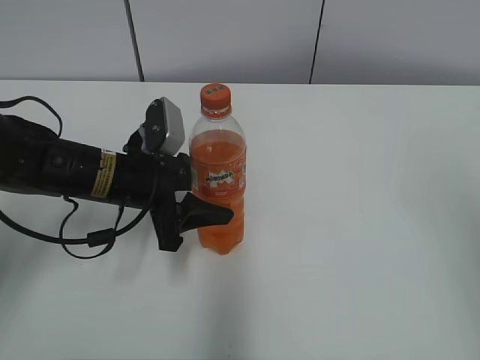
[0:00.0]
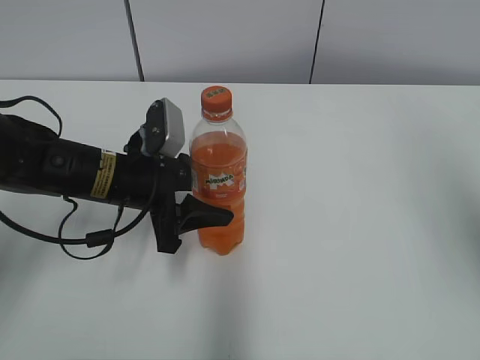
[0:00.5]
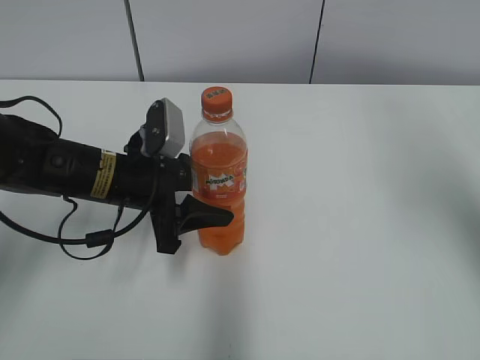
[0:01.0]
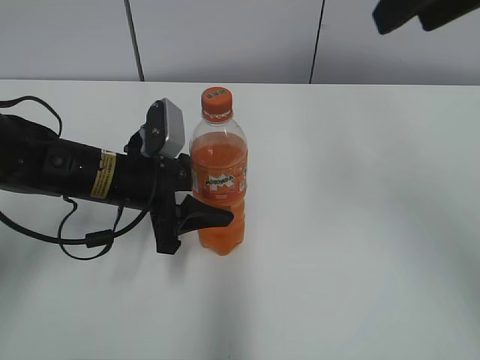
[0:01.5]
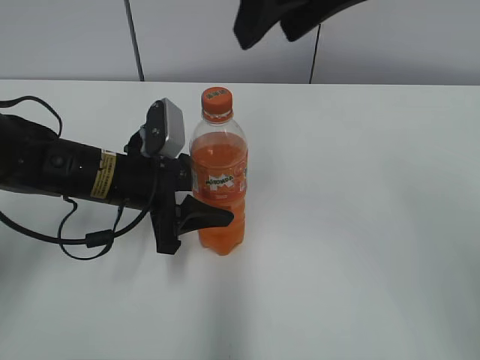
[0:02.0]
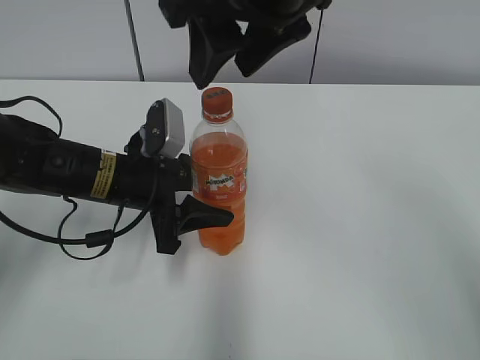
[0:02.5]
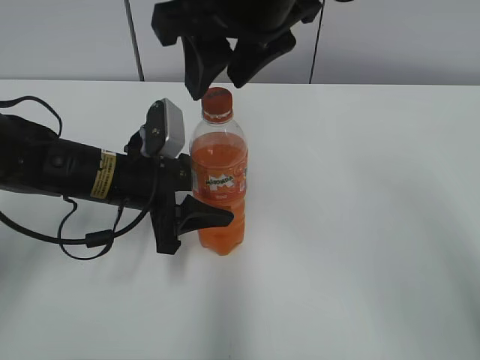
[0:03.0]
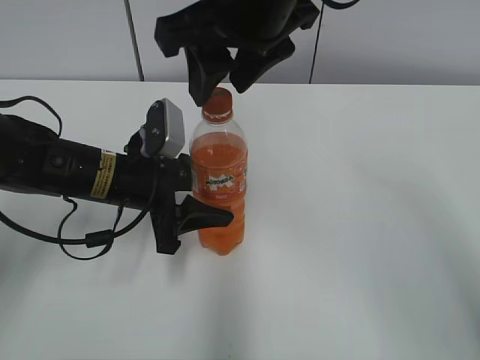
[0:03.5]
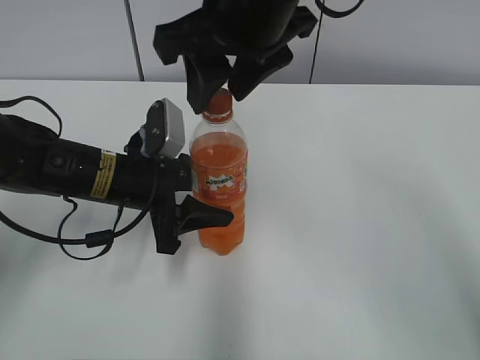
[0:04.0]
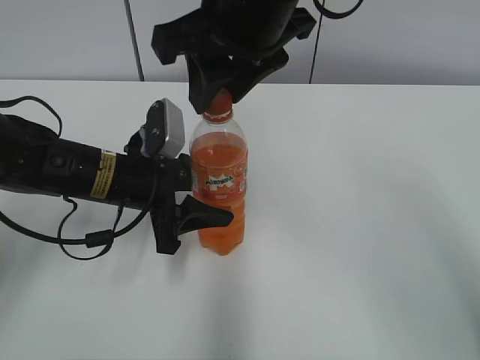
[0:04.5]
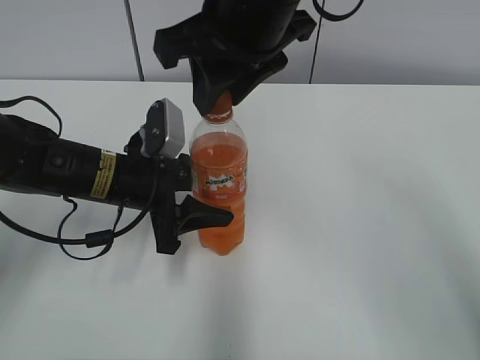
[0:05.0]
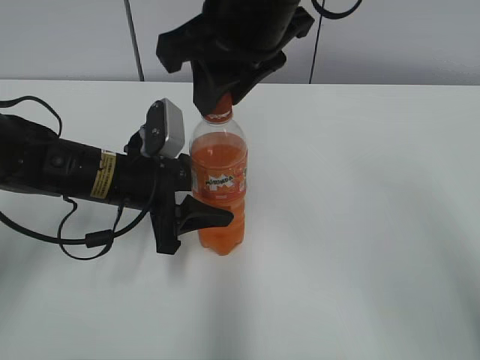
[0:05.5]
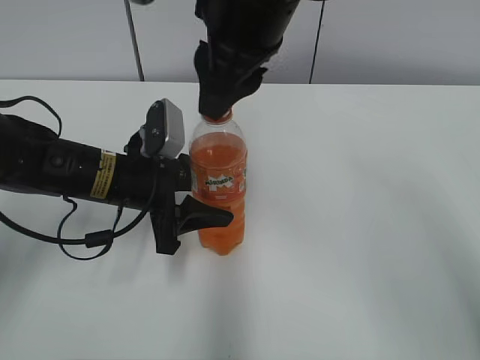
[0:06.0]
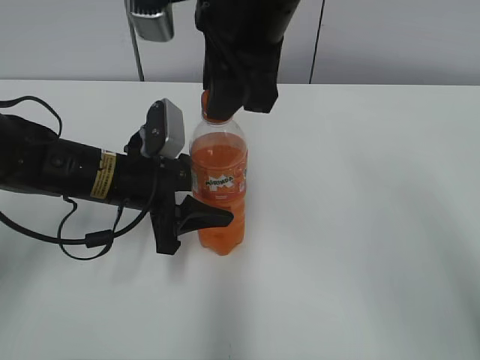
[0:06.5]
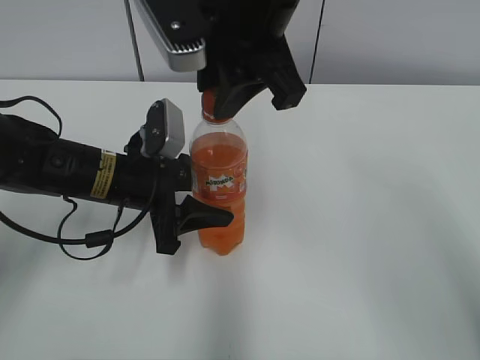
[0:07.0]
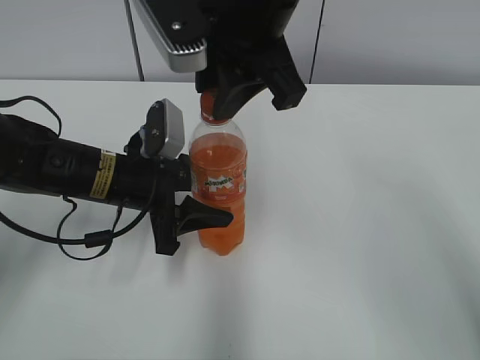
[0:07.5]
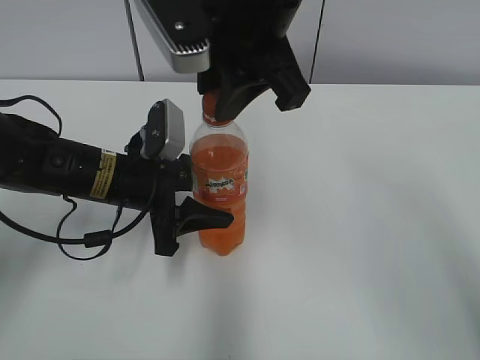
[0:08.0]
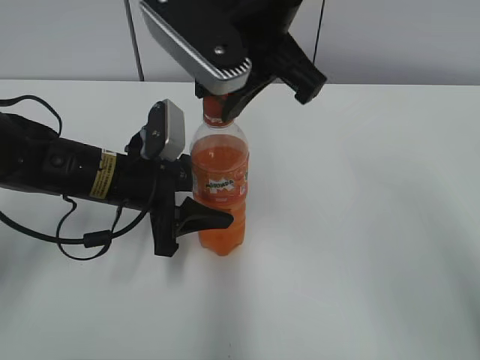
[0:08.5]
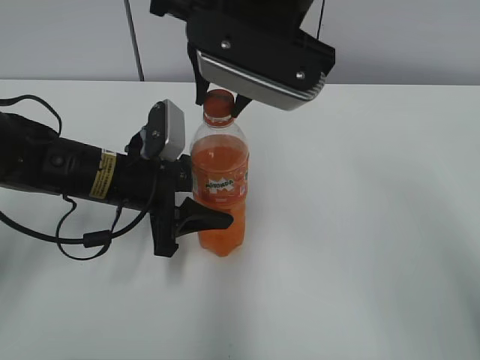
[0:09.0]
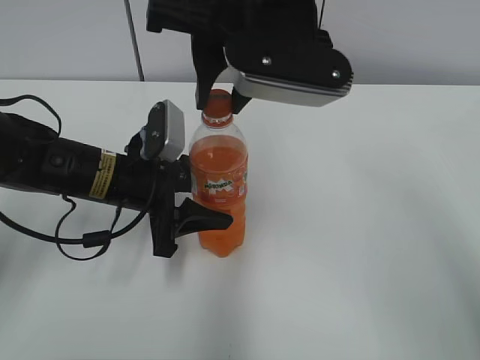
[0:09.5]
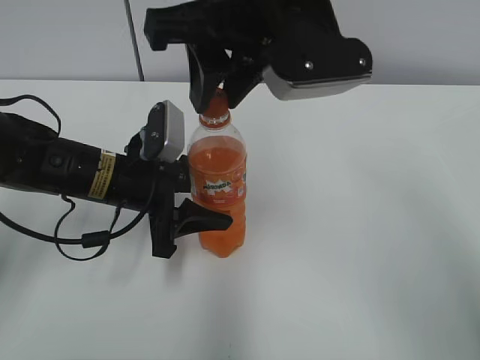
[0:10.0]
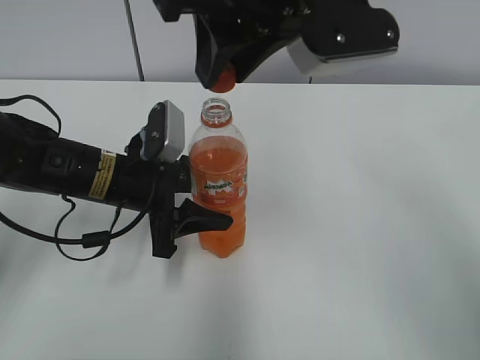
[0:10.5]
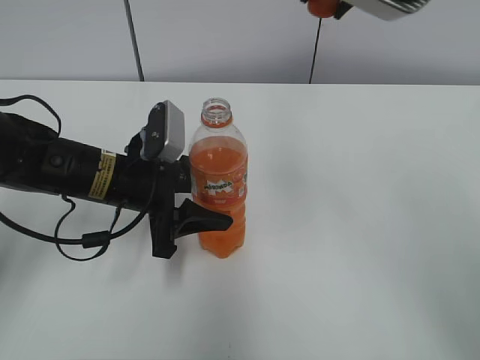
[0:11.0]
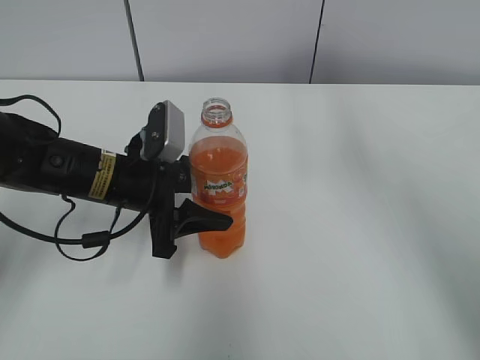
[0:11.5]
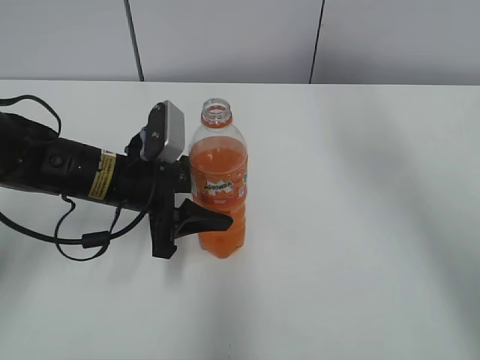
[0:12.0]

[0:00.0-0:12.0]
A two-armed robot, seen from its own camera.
0:00.0 to 0:02.0: The right gripper heads to the left and forward, covering roughly 30 cm.
0:02.0 to 0:04.0: The right gripper moves downward and to the left, roughly 10 cm.
0:04.0 to 0:06.0: The right gripper closes its fingers.
0:10.0 to 0:12.0: The right gripper is displaced to the right by about 15 cm.

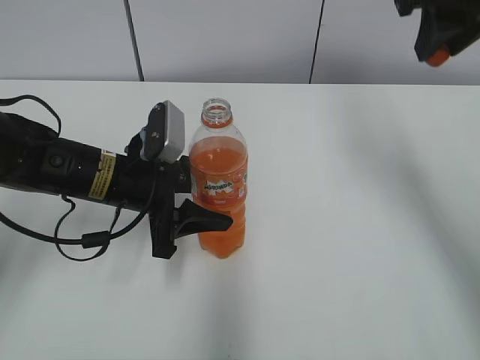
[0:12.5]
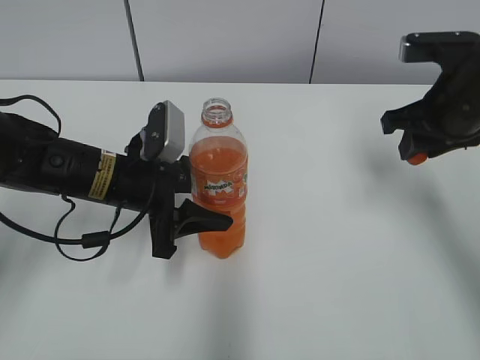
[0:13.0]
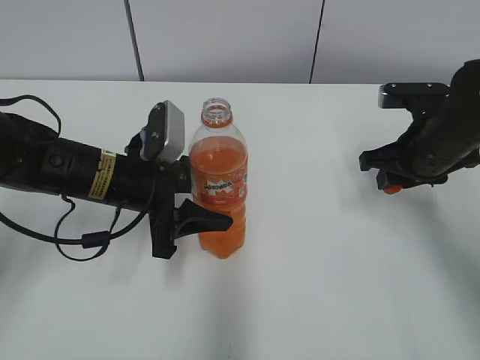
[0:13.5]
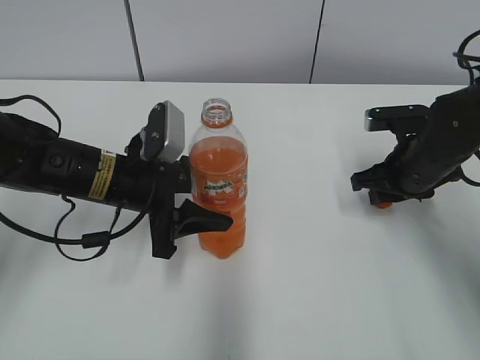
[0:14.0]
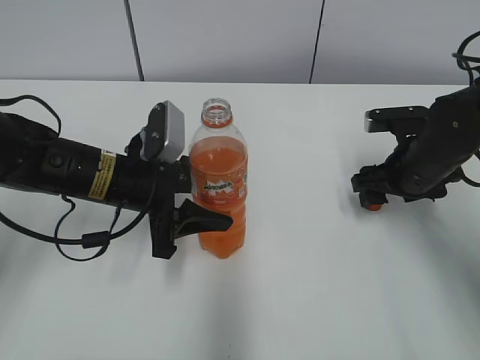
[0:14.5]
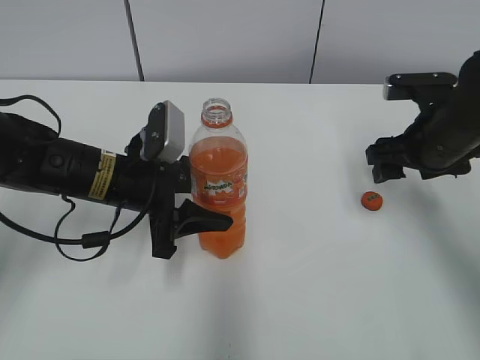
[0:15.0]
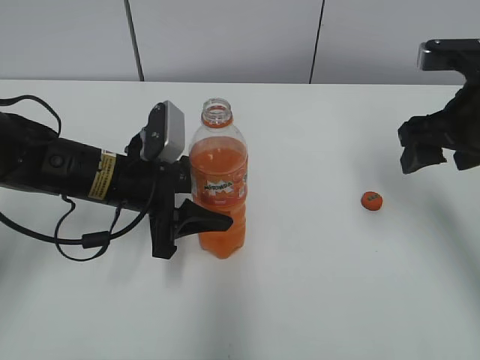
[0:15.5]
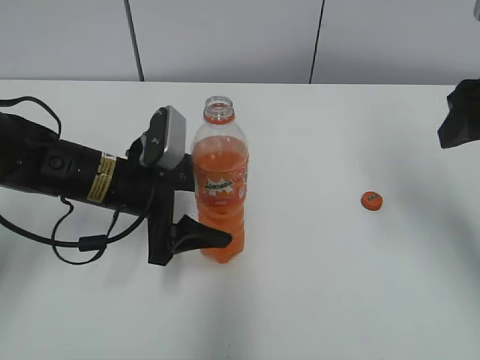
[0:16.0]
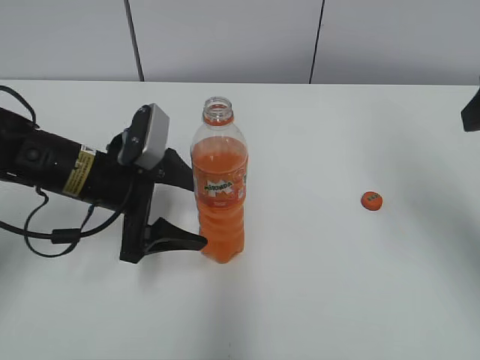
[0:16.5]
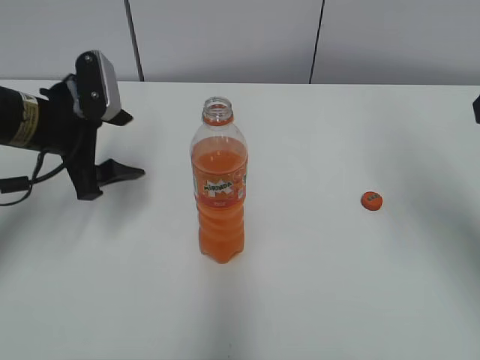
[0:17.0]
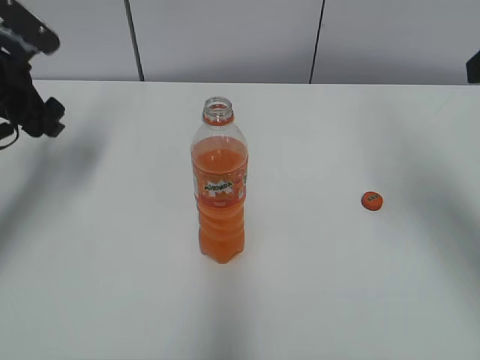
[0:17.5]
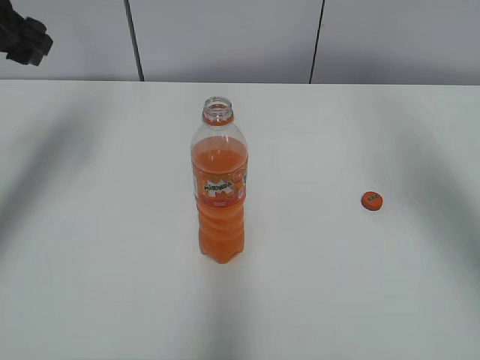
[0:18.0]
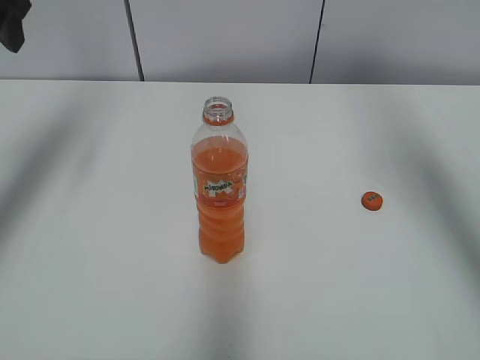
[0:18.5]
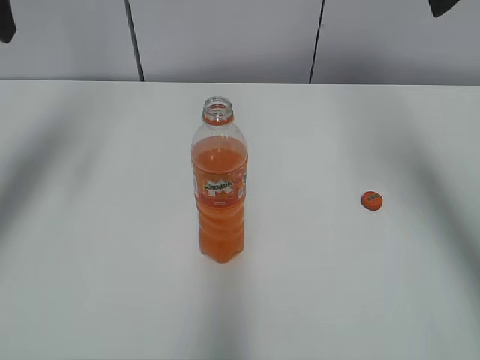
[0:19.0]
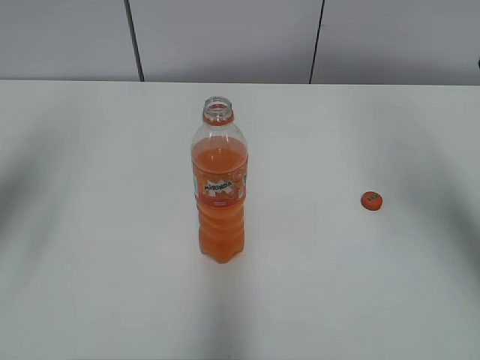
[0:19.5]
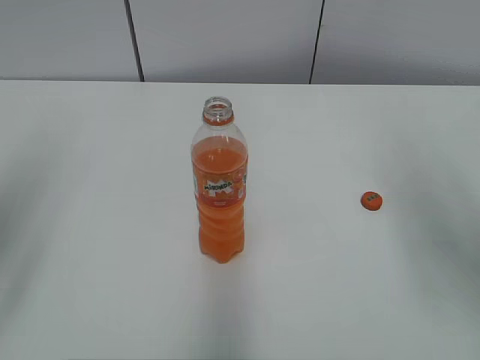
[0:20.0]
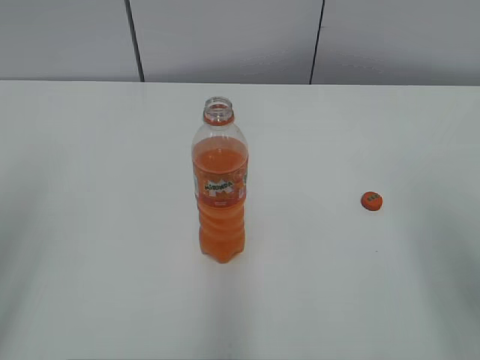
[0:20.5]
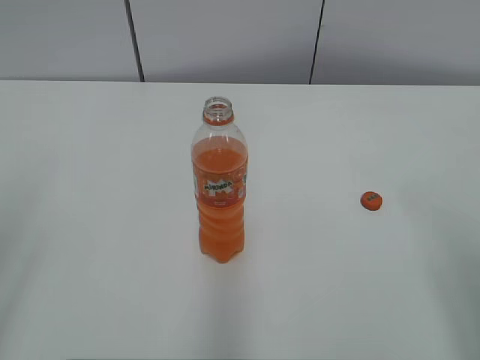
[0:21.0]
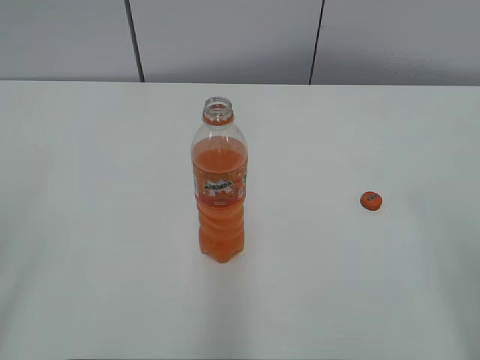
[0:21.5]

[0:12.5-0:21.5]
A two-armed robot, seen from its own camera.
0:12.5 to 0:14.5: The right gripper is displaced downward by about 25 cm, and opens.
0:14.5 to 0:17.0: The left gripper goes about 10 cm to the left and upward, and opens its fingers; the right gripper travels upward and backward by about 25 cm.
0:17.0 to 0:19.5: The left gripper moves upward, backward and to the left, some 20 cm.
0:19.5 to 0:21.5: The left gripper is displaced backward by some 20 cm, while the right gripper shifts some 25 cm backward and downward.

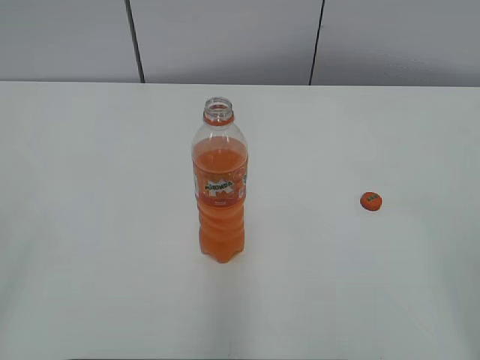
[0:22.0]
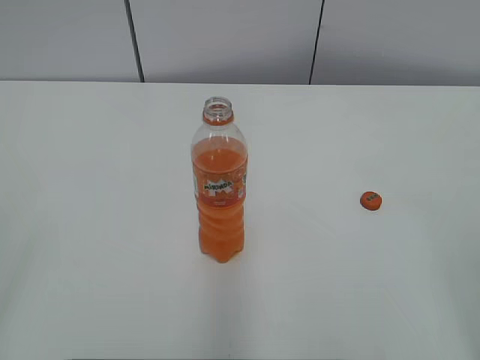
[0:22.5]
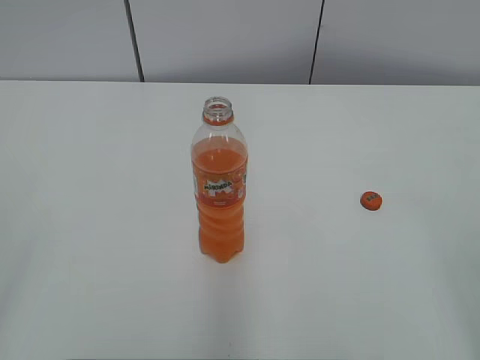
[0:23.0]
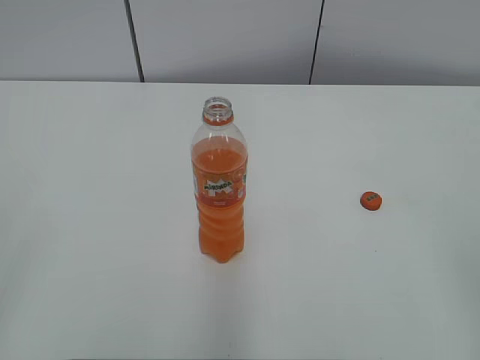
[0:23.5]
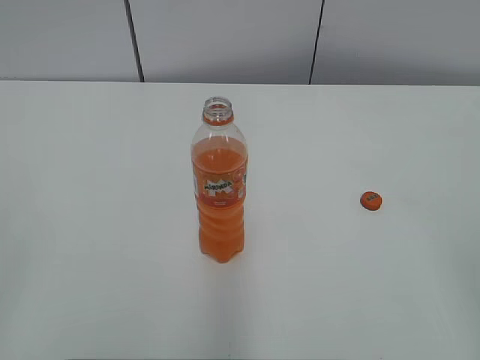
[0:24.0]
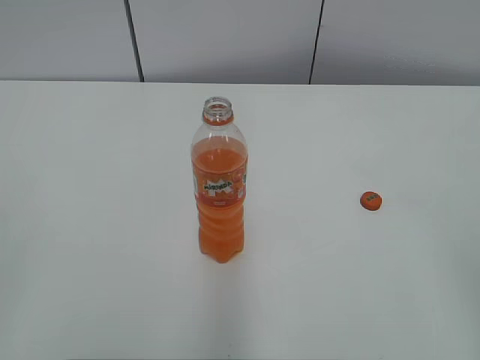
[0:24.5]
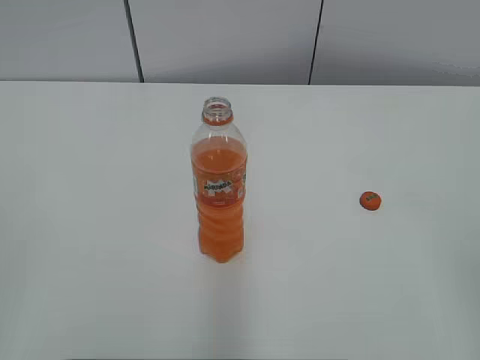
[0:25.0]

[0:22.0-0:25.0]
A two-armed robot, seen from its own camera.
0:23.5 to 0:25.0: Neither gripper changes place.
